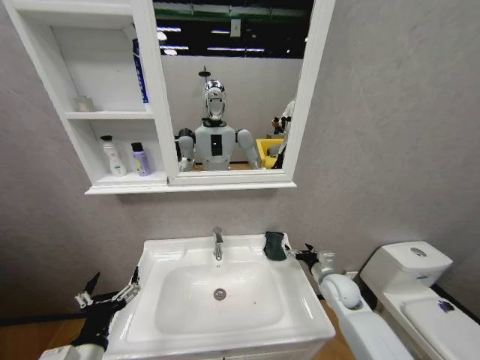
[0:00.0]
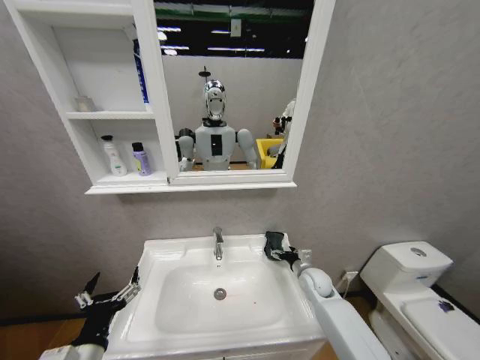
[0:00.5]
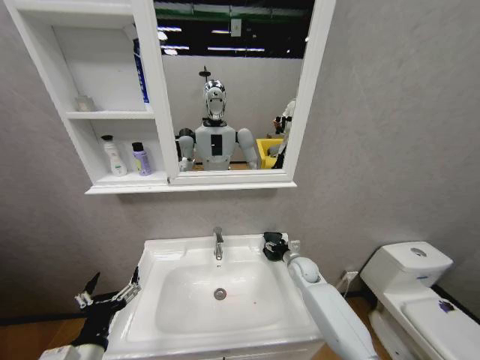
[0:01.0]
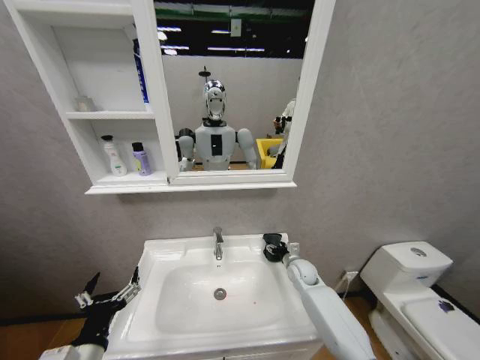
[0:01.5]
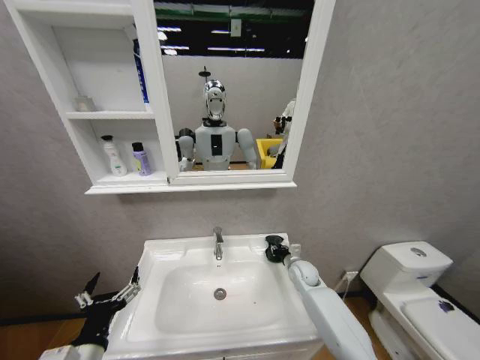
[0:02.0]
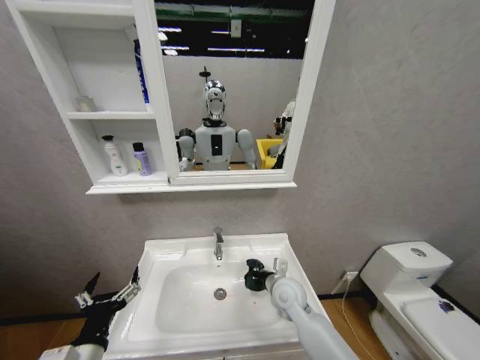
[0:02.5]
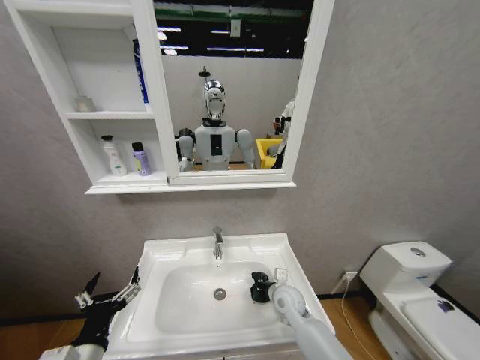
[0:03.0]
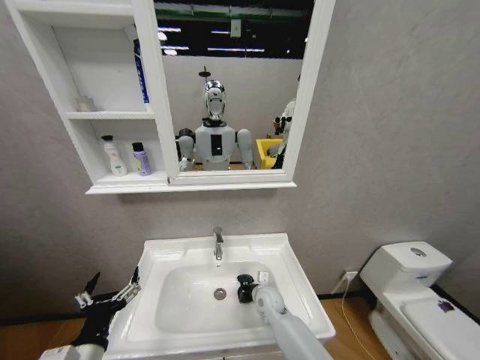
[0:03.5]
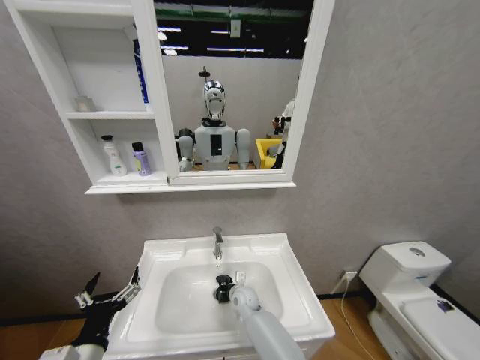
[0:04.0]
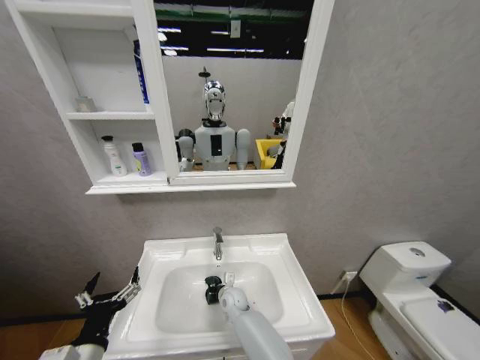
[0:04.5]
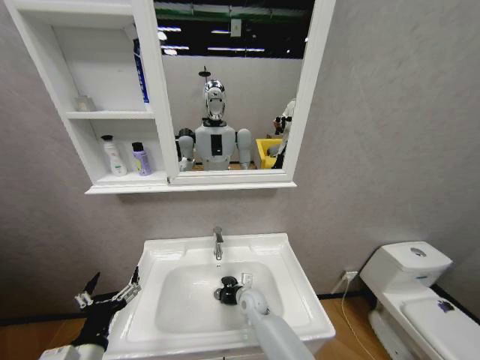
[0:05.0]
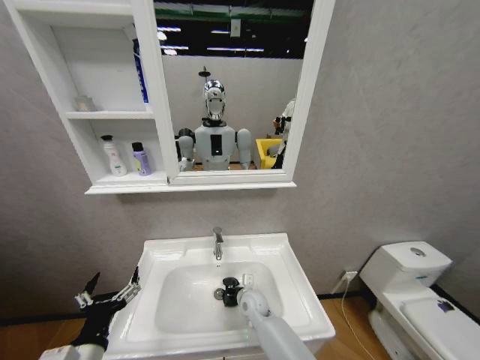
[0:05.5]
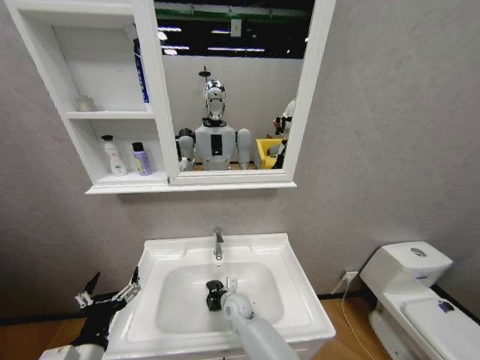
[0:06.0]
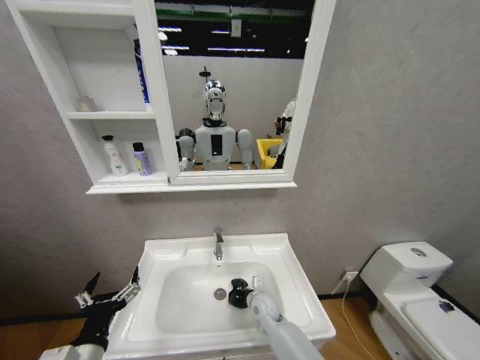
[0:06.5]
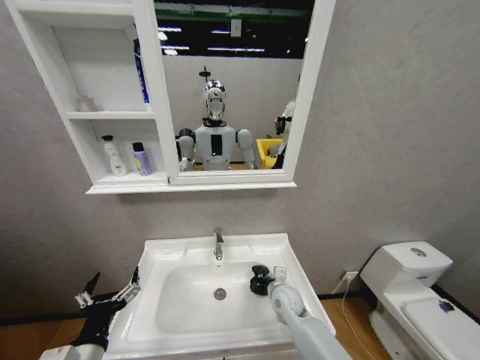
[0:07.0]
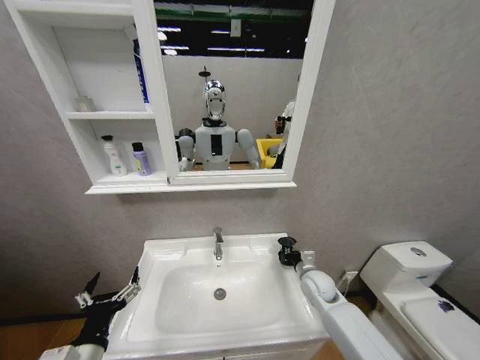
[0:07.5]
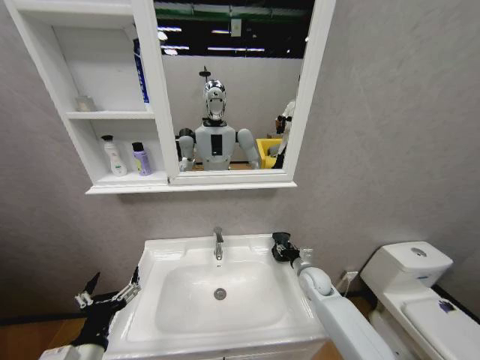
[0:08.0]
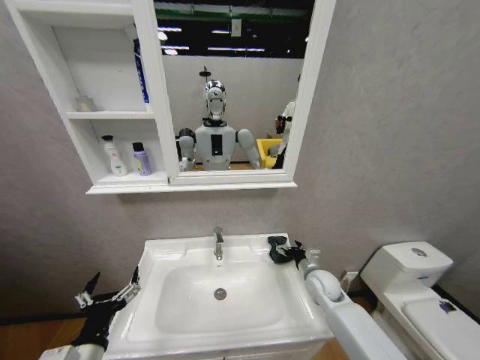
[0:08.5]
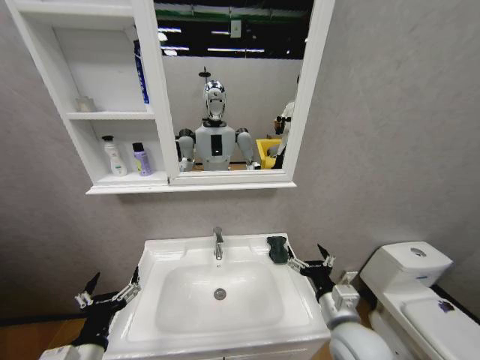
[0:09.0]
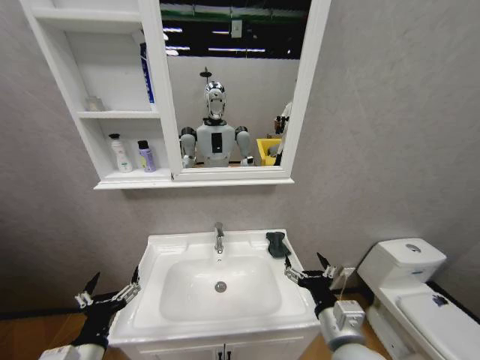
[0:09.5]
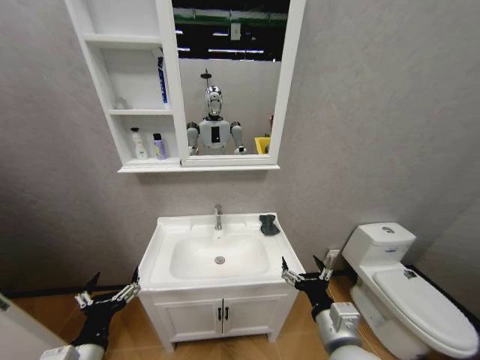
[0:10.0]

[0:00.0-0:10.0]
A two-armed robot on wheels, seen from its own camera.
Task of the whole recording: Move facial cleanser and shampoo from washbasin to cabinet, then wipe washbasin with towel.
0:00.0 to 0:02.0: The right gripper is displaced forward and to the left by some 10 cm, and closes its fingers.
0:02.0 to 0:04.0: The right gripper goes some 20 cm to the left.
0:04.0 to 0:06.0: The right gripper swings left and right, about 5 cm each way, with 2 reversals.
0:06.0 to 0:08.0: The right gripper moves to the right, some 25 cm, and opens its fingers.
0:08.0 to 0:10.0: The right gripper heads backward and upward, covering about 30 cm, and opens its fingers.

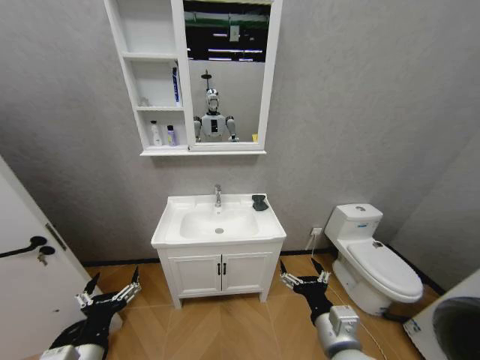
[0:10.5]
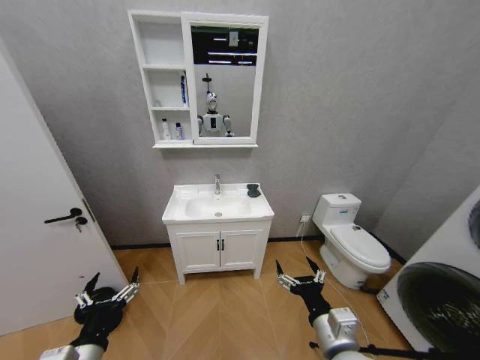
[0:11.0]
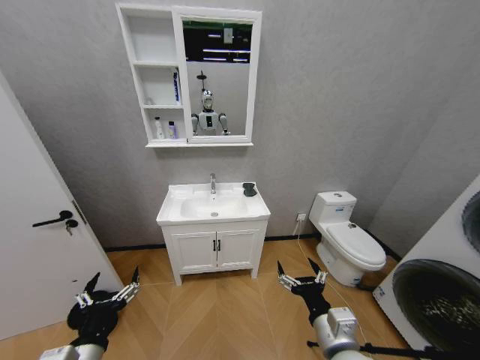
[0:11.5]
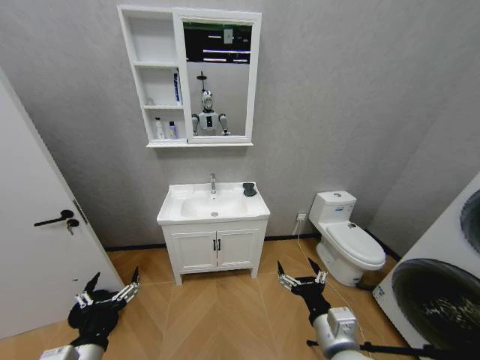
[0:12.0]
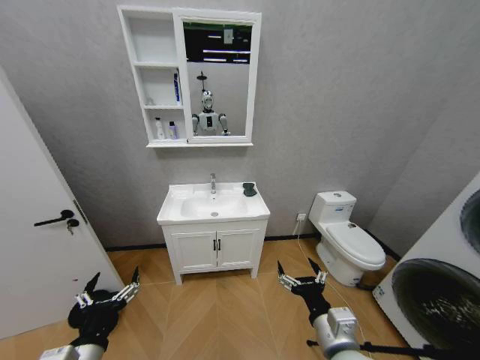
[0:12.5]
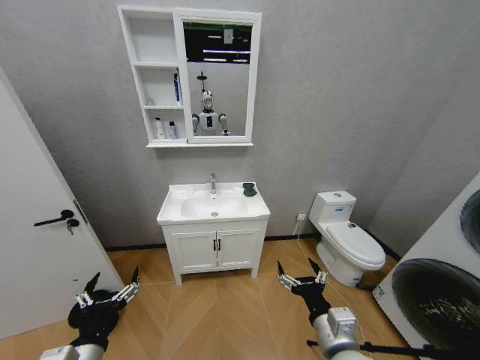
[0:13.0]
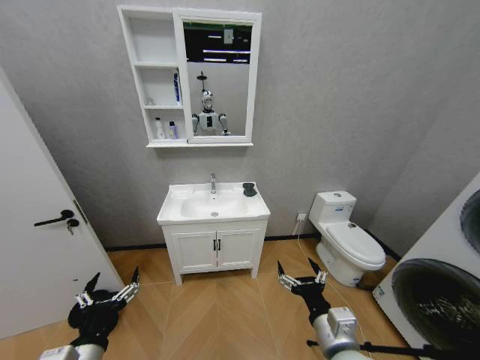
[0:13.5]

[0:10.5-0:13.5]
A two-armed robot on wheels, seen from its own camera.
Task of the whole recording: Move facial cleanser and shampoo from washbasin to cabinet, then wipe washbasin with towel.
0:12.0 to 0:13.5: The two grippers keep their place.
